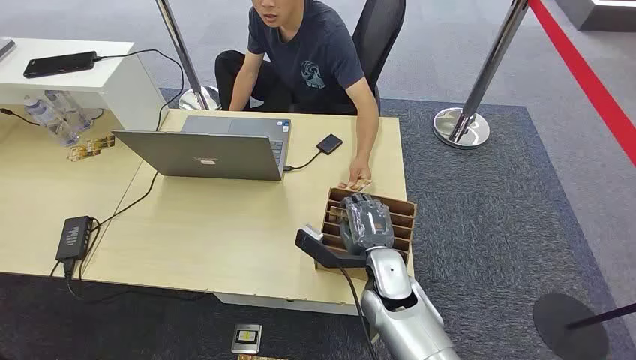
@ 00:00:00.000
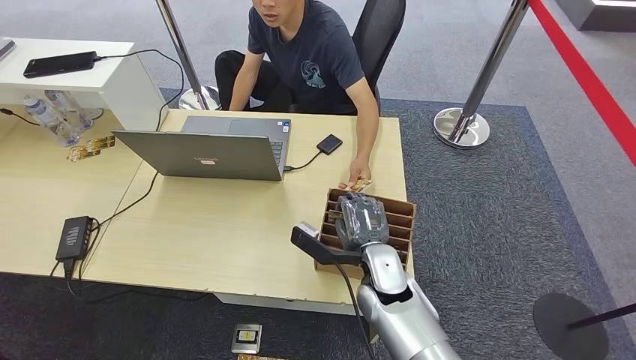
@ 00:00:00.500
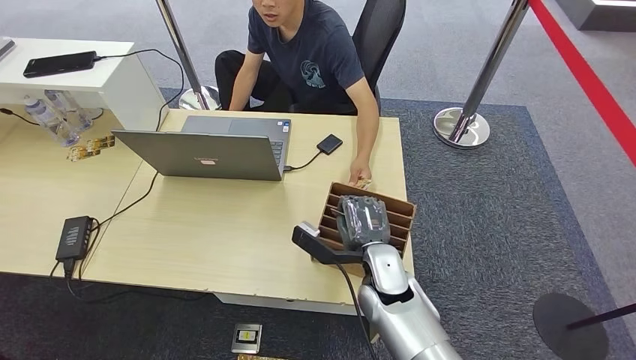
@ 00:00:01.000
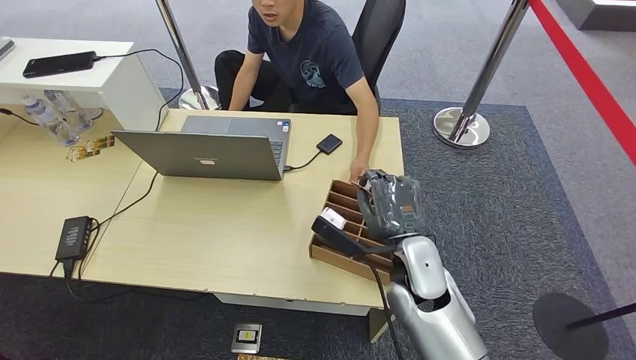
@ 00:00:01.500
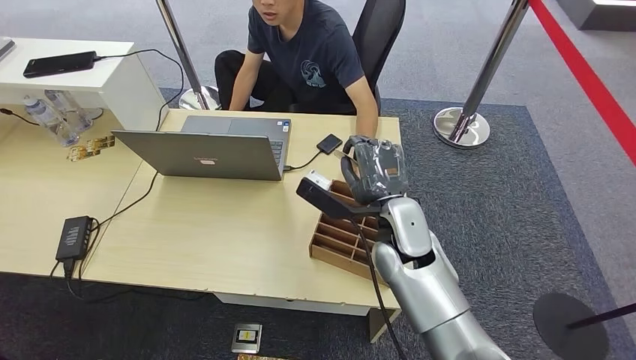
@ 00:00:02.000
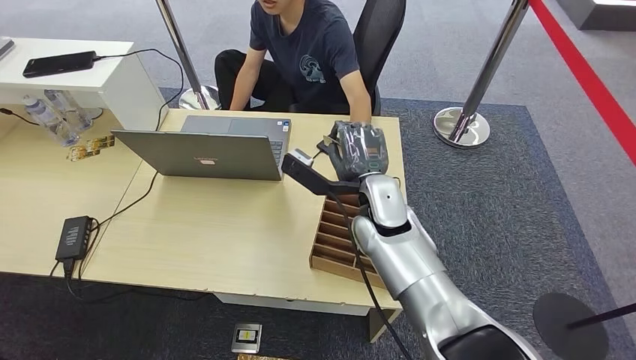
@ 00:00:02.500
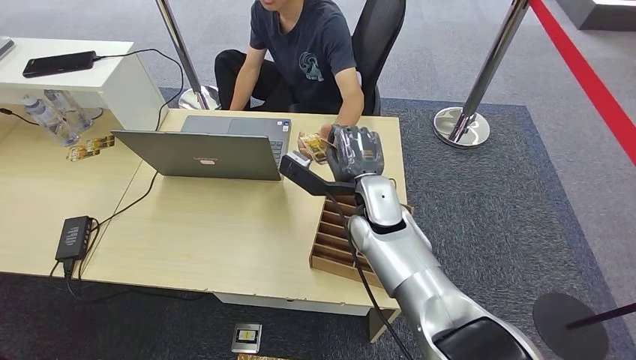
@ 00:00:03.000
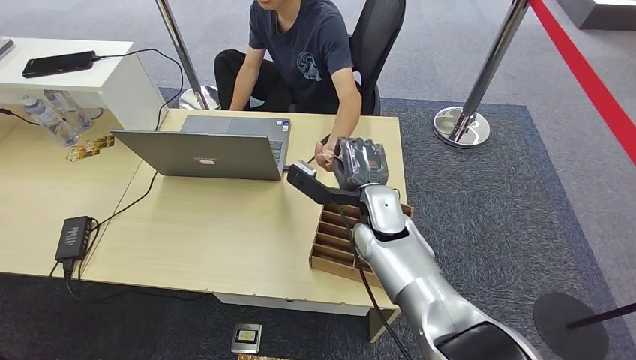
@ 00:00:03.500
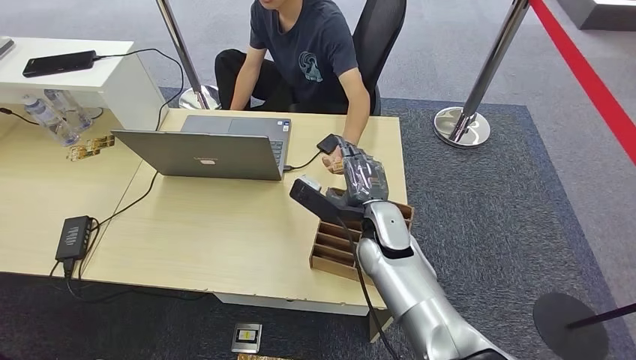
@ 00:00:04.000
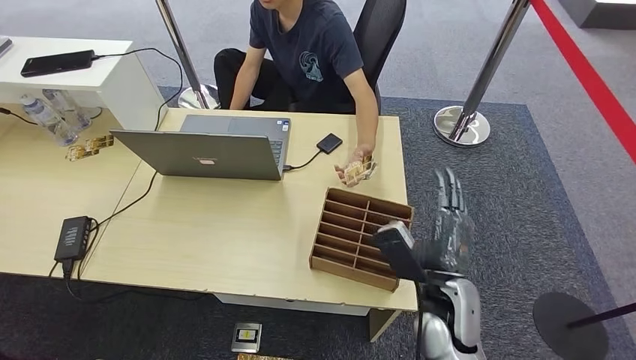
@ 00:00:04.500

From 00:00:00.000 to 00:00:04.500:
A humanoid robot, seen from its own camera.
Step, from 00:00:00.000 to 00:00:02.000: Pick up the key card from the card box.
Step, from 00:00:02.500 to 00:00:04.500: Hand the key card to the target.
From 00:00:02.000 to 00:00:04.500: The right hand heads backward, to the right and downward, covering some 15 cm.
